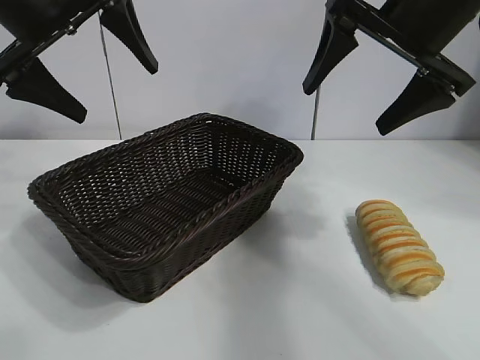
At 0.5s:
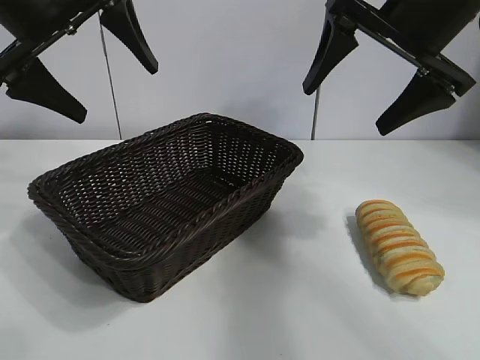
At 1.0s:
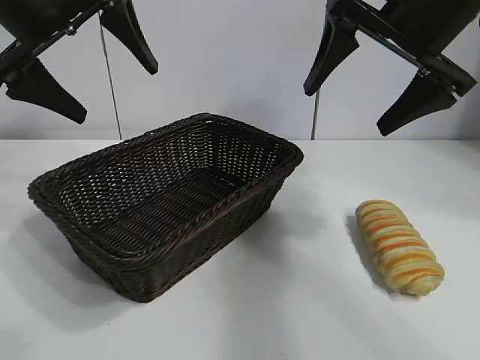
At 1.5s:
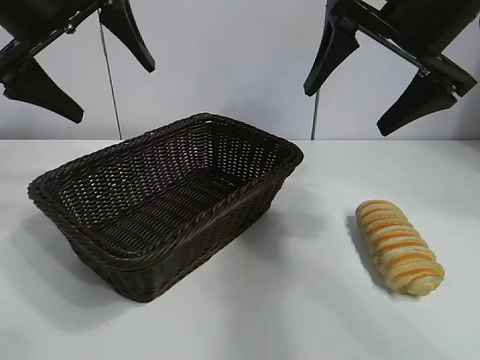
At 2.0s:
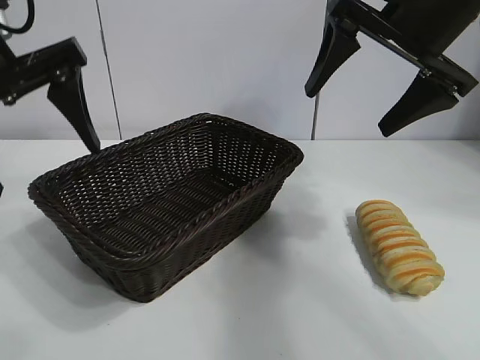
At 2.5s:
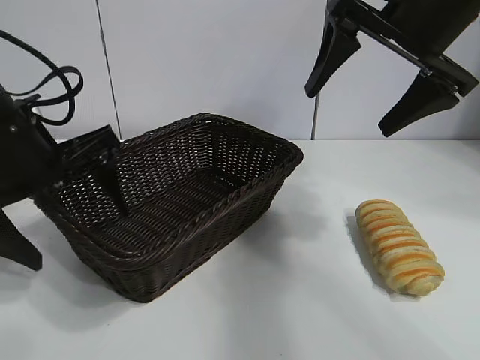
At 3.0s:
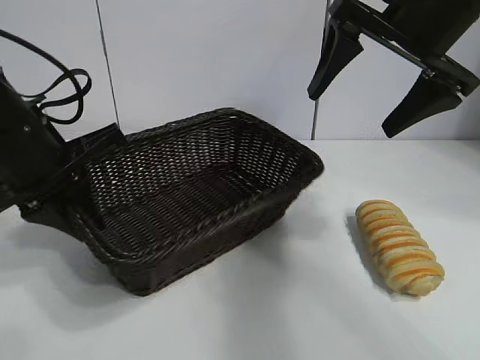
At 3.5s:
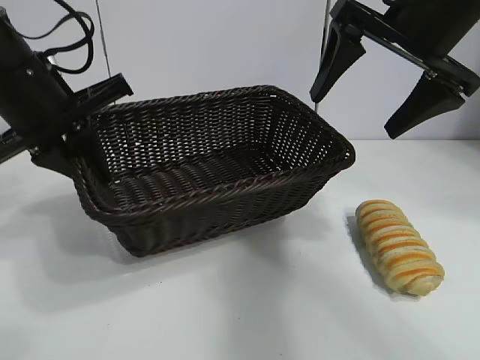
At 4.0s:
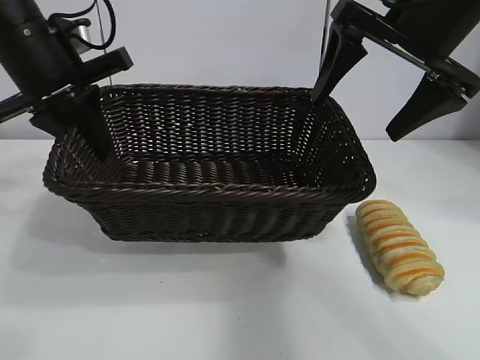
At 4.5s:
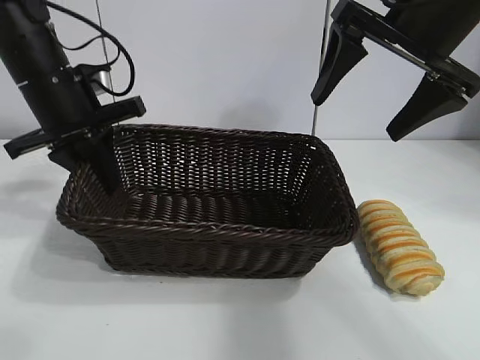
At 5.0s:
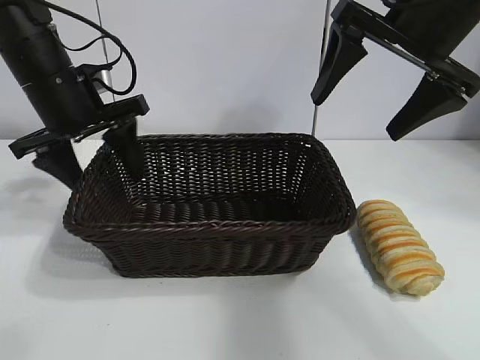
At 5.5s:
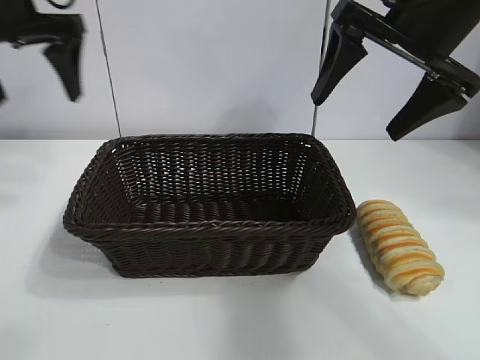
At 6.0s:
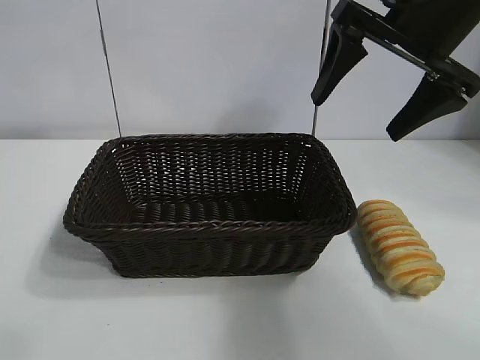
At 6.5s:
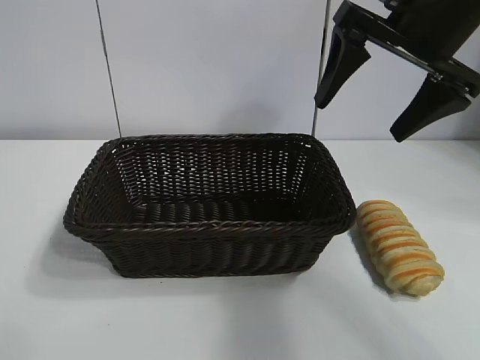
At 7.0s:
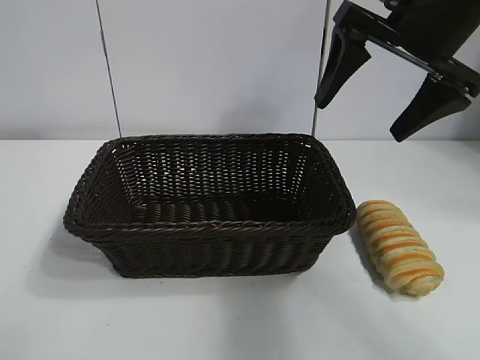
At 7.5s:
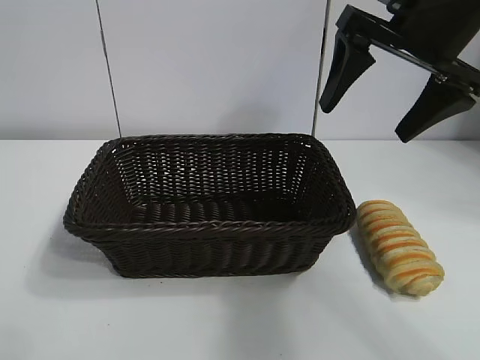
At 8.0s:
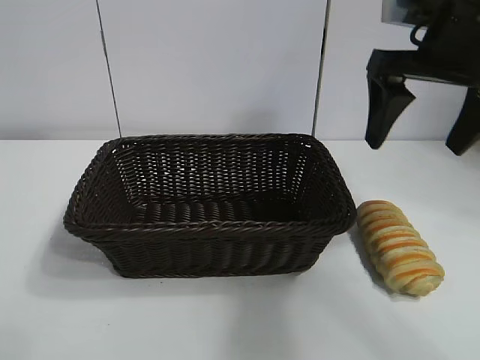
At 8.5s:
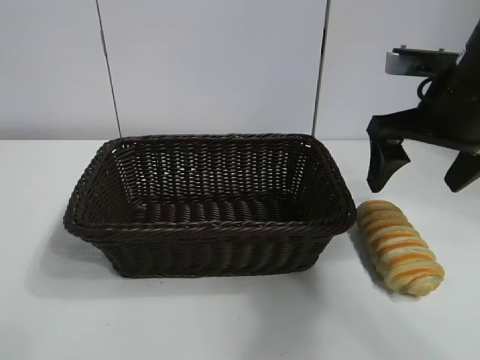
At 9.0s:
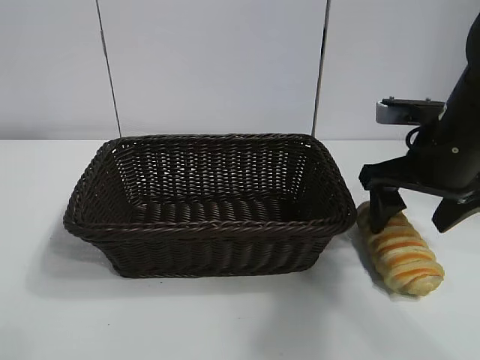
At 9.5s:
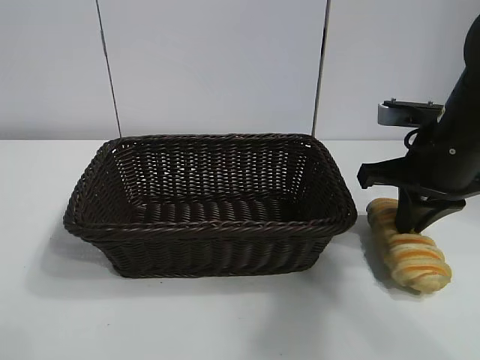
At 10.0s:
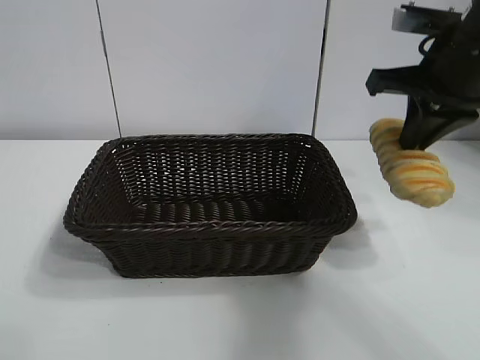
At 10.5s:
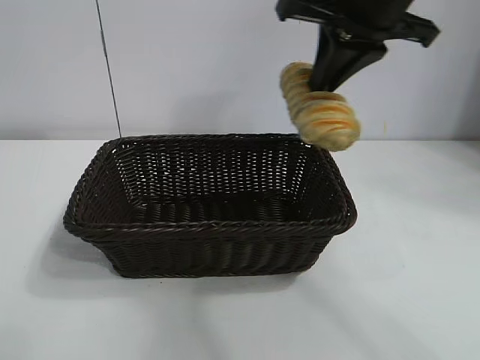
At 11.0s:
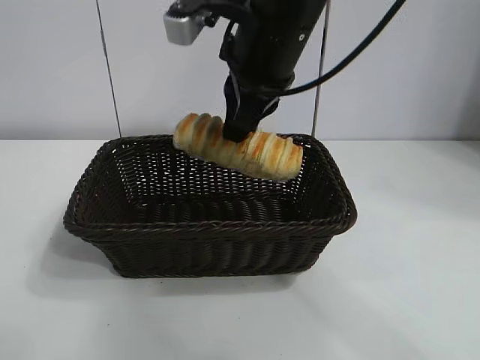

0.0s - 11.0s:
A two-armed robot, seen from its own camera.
Task of the whole recording: pick up the long bread and put it into the basket.
Step, 1.5s - 3.0s: Grasp the basket with the left gripper.
Step, 3.5s - 5.0s: Place the basket in the center of the table with the left gripper.
Step, 5.5s - 9.0s: Grasp the long bread with right gripper.
